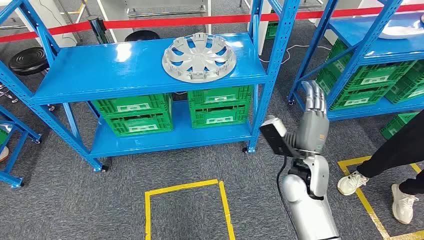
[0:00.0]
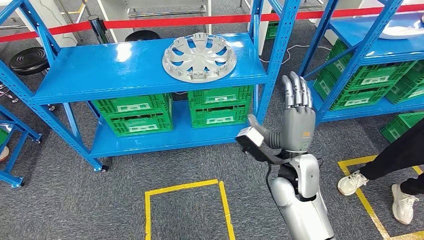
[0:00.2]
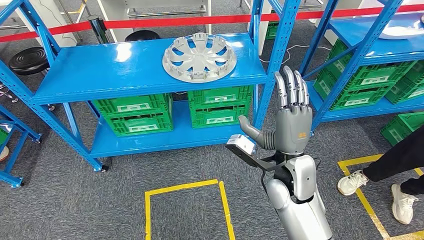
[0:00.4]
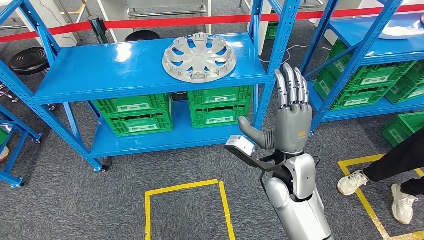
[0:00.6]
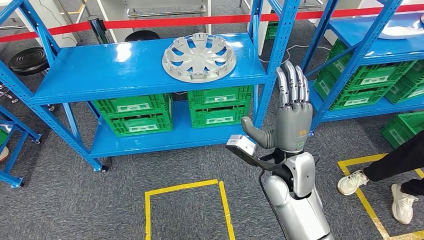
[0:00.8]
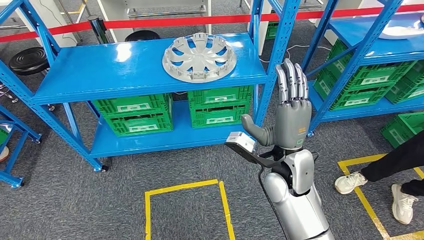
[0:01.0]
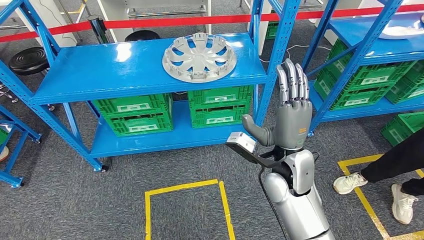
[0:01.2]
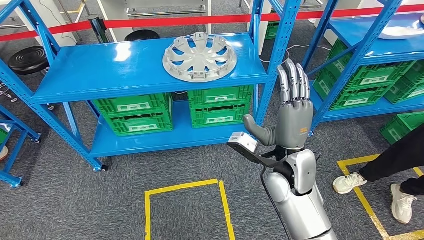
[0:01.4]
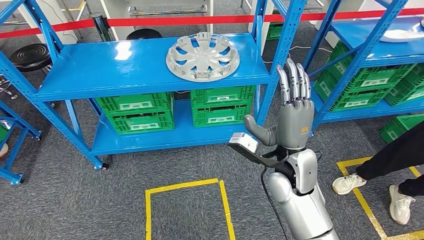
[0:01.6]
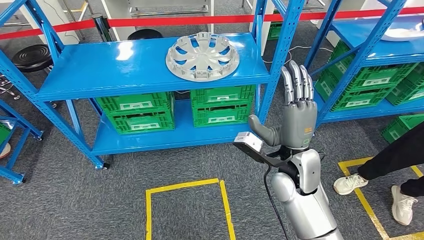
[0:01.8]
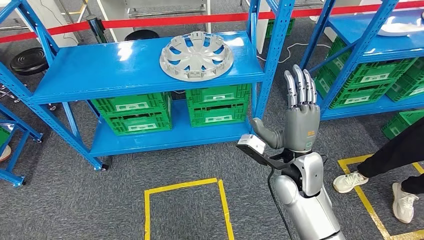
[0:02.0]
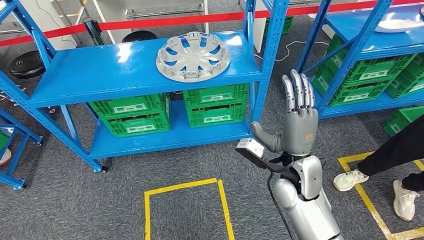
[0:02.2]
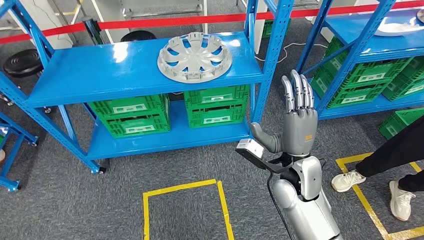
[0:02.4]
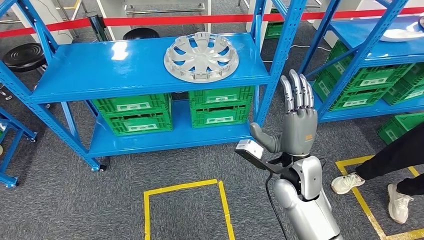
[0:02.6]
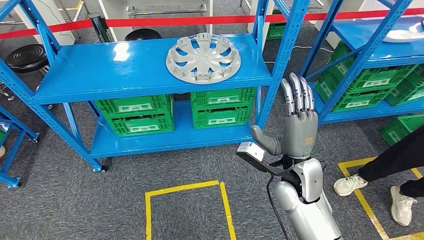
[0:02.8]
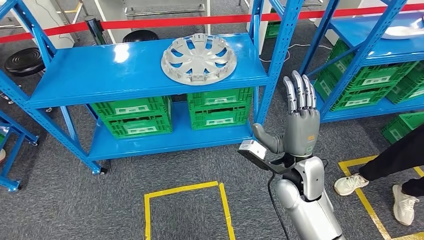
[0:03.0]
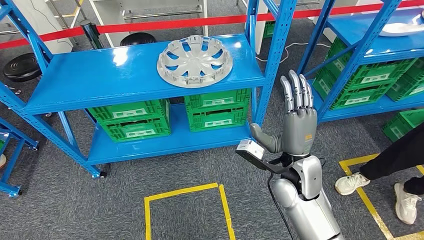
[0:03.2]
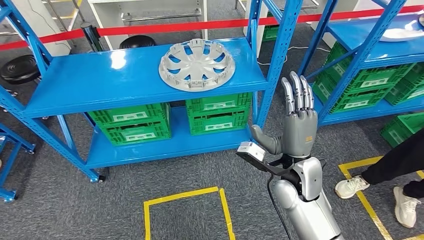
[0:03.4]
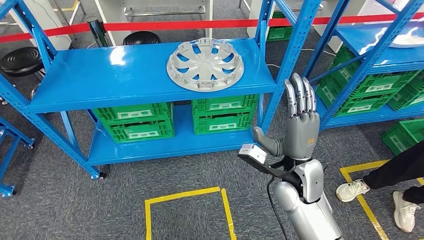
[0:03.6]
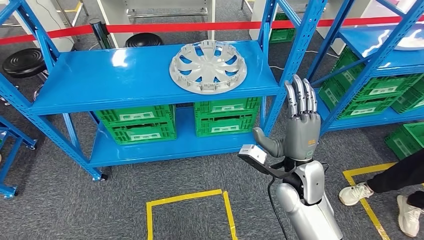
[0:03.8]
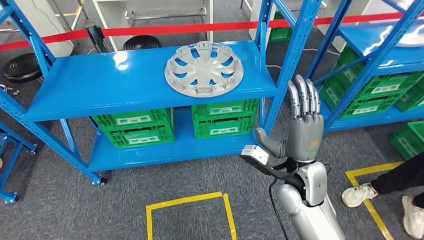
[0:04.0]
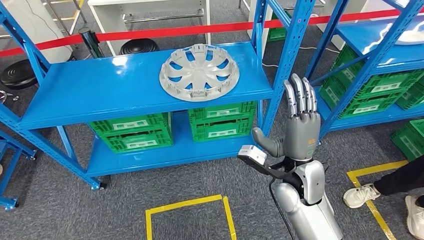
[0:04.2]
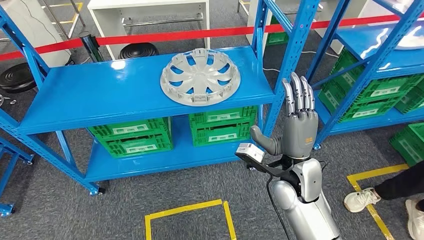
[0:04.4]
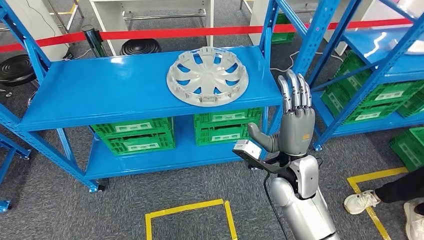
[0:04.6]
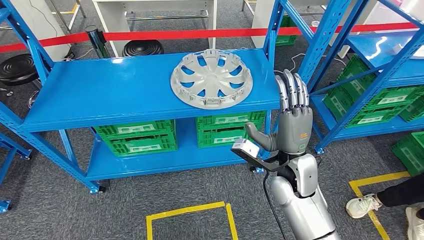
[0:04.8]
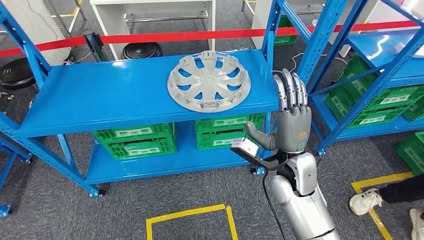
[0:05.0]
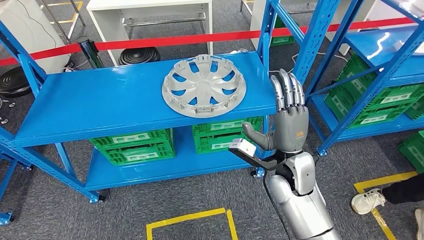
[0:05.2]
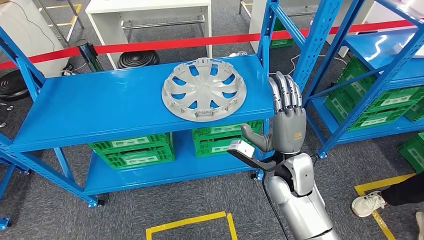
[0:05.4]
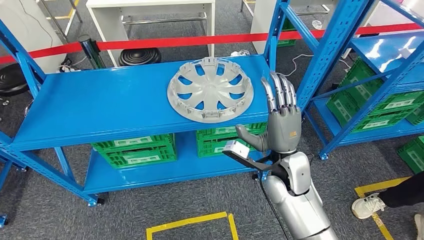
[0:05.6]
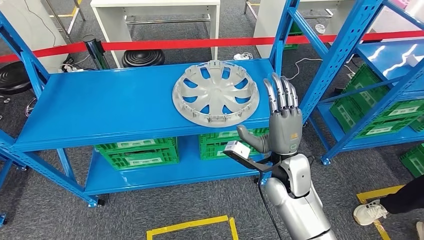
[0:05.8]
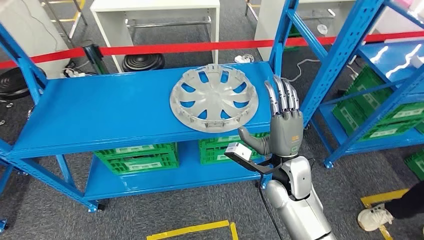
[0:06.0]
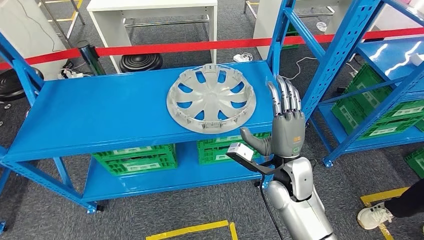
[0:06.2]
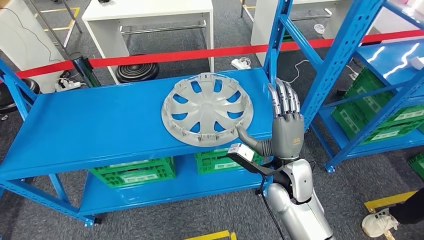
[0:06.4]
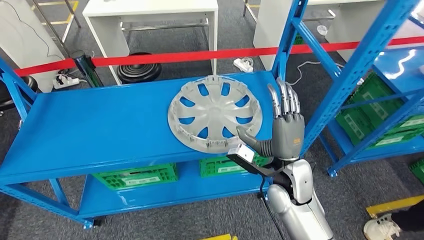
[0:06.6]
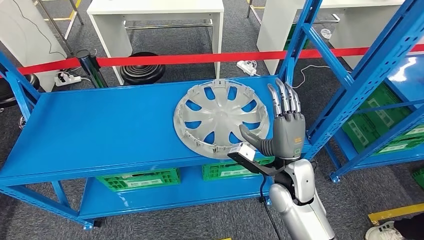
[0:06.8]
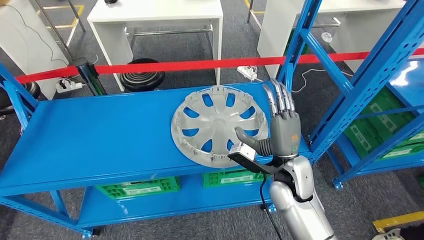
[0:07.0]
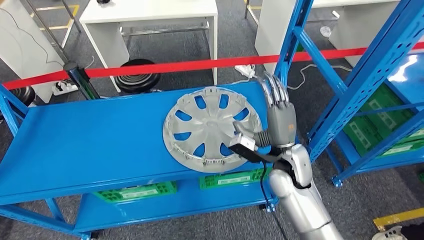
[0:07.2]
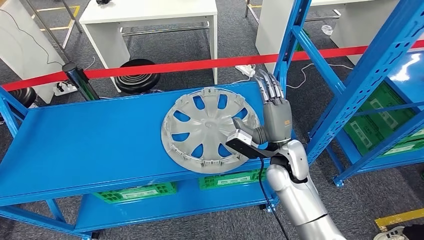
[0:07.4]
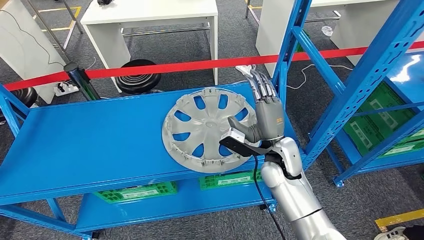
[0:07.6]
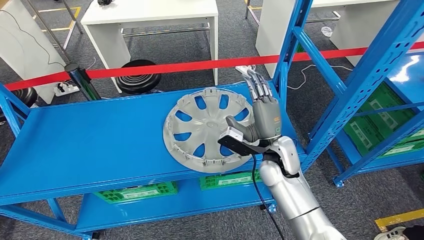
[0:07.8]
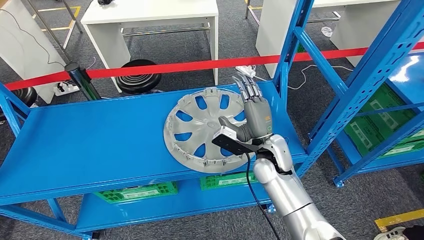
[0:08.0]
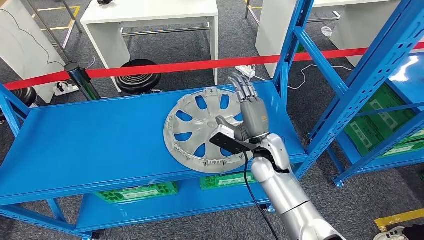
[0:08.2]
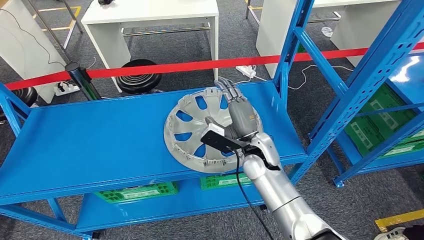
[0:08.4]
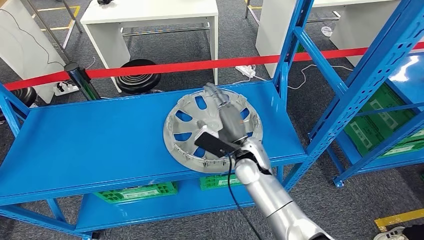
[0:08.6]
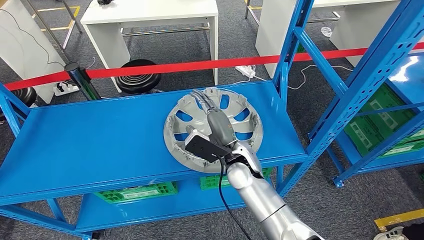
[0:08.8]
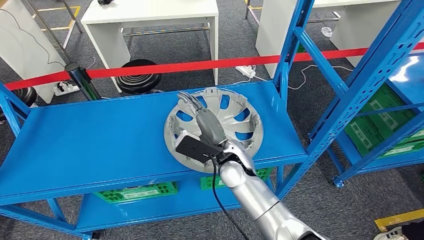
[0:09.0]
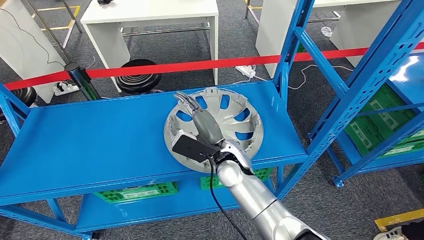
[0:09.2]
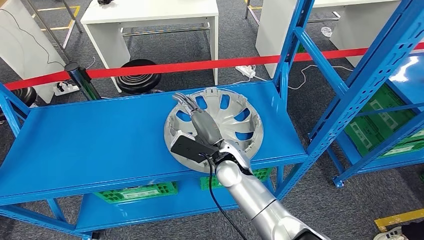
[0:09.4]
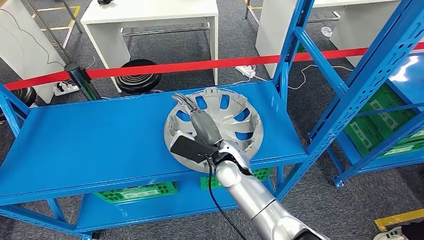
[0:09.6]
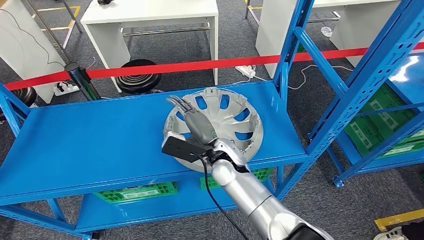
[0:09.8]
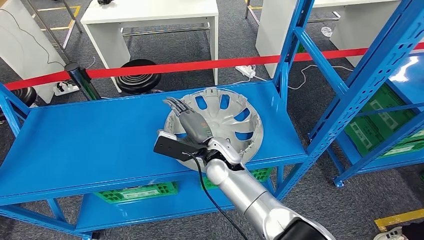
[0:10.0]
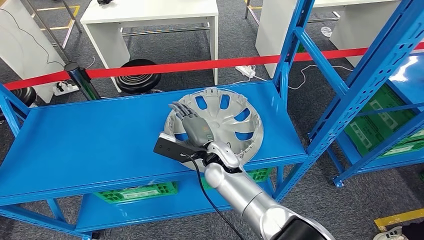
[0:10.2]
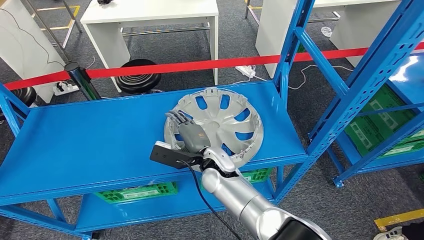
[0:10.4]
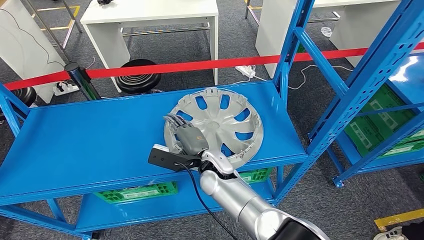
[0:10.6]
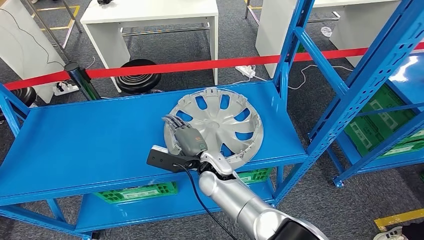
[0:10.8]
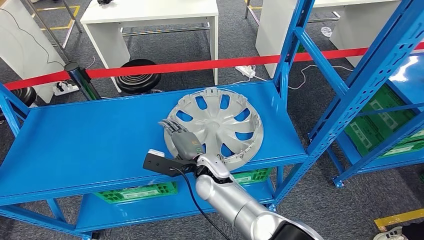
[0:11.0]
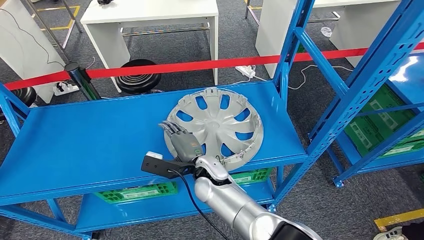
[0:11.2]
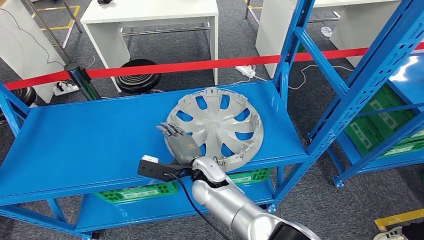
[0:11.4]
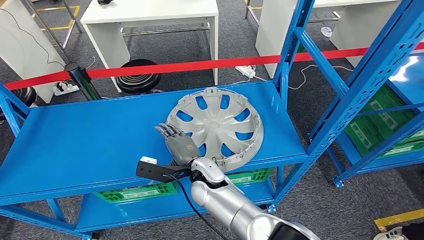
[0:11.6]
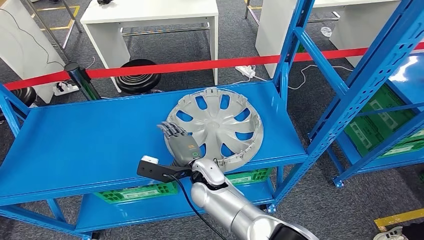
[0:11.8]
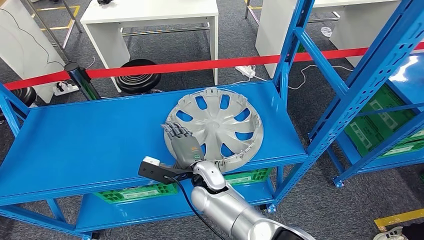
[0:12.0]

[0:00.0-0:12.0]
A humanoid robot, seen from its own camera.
0:07.6 to 0:09.0: The right hand heads to the left, covering roughly 10 cm.
0:10.4 to 0:12.0: The hands stay close to where they were, moving slightly.

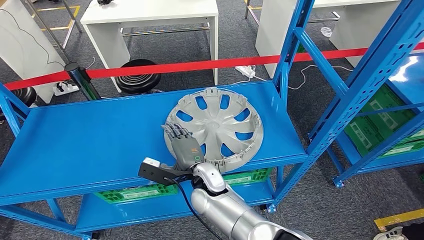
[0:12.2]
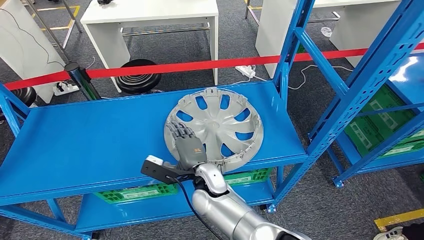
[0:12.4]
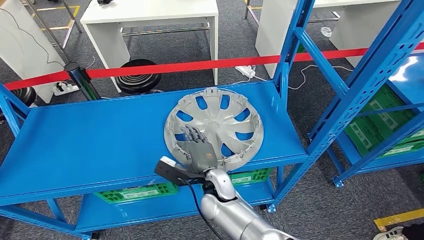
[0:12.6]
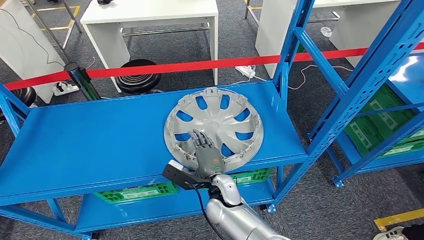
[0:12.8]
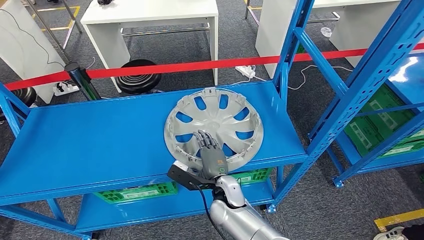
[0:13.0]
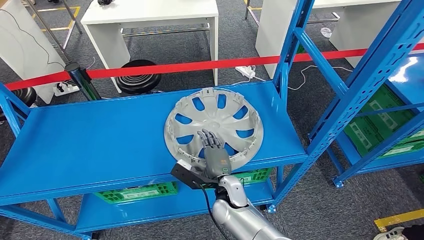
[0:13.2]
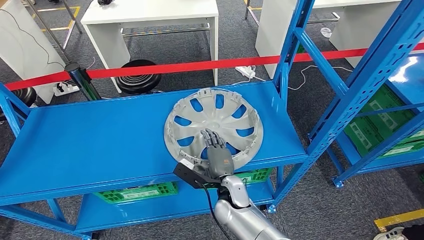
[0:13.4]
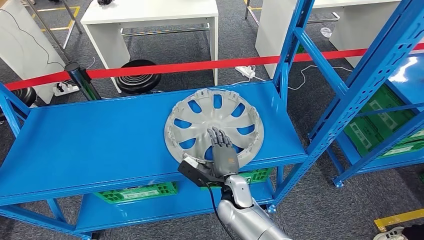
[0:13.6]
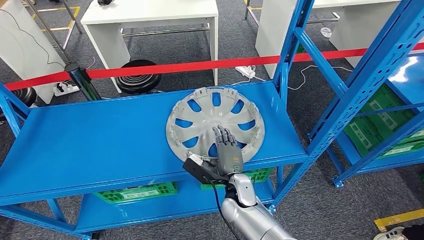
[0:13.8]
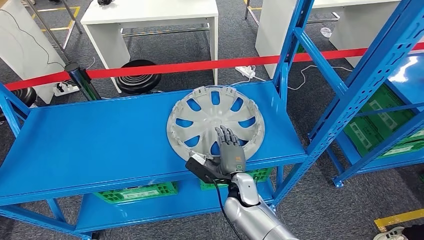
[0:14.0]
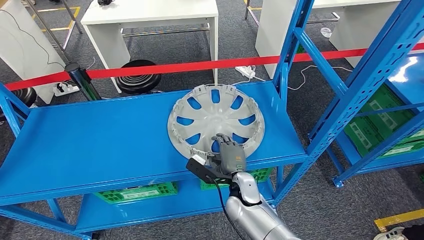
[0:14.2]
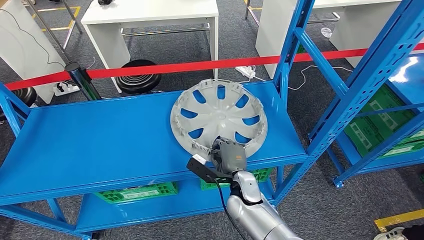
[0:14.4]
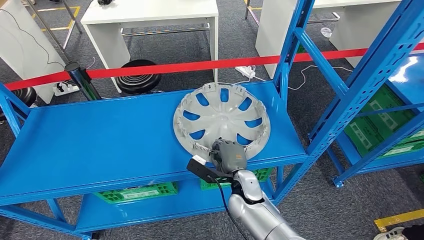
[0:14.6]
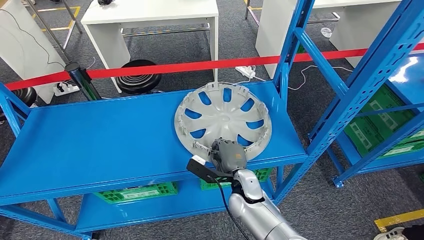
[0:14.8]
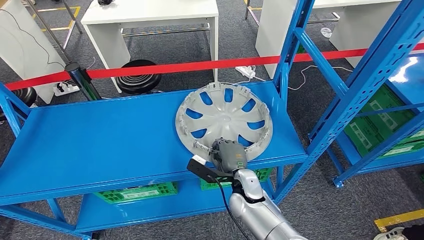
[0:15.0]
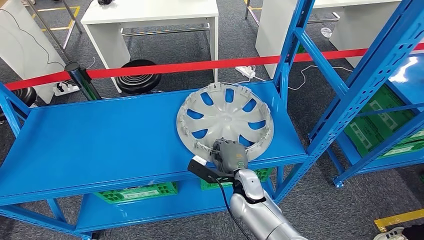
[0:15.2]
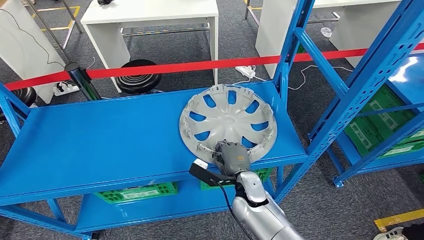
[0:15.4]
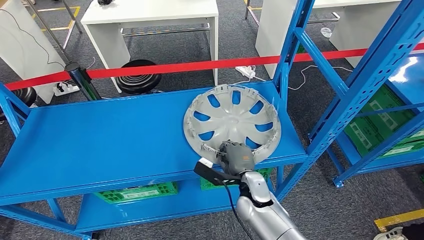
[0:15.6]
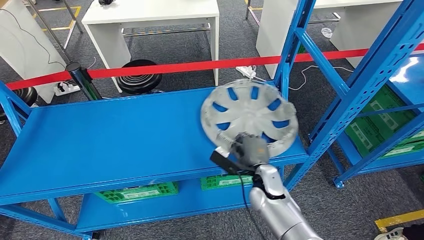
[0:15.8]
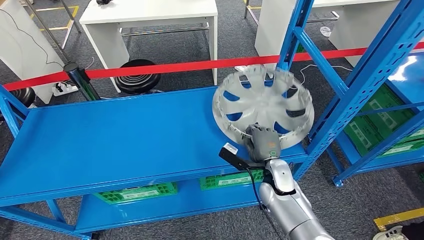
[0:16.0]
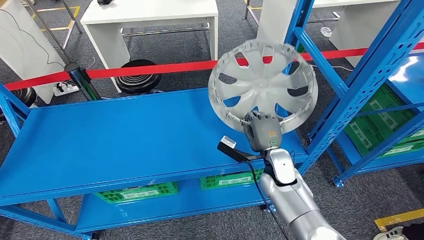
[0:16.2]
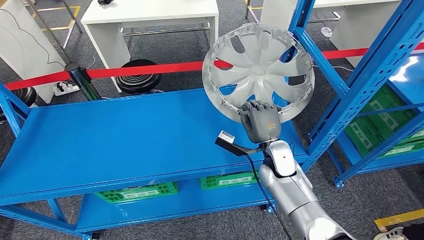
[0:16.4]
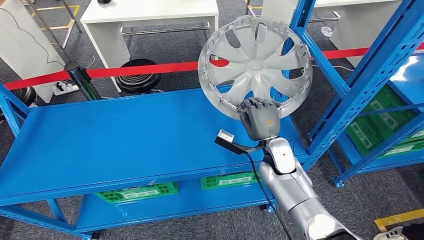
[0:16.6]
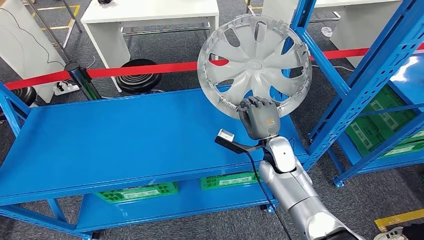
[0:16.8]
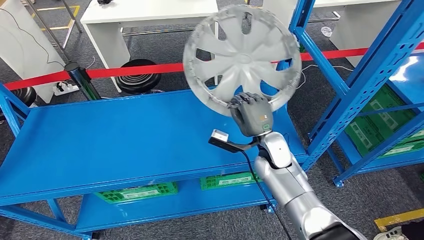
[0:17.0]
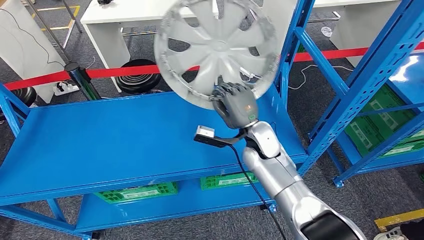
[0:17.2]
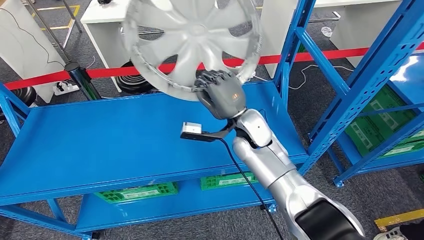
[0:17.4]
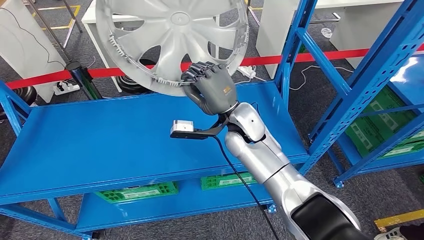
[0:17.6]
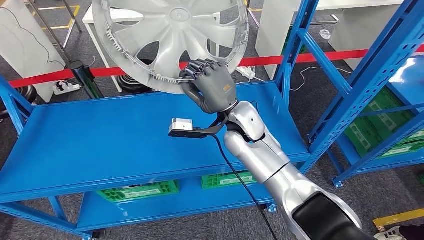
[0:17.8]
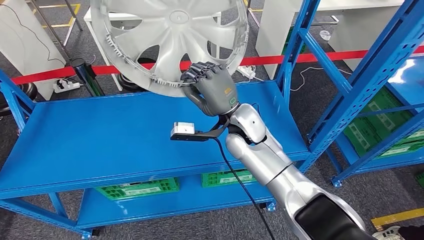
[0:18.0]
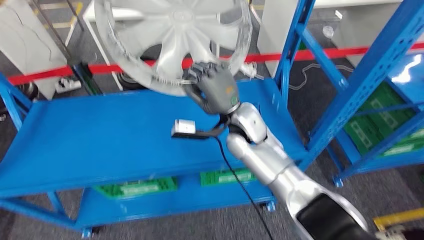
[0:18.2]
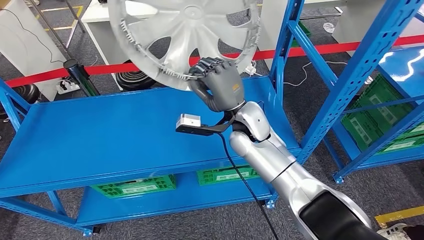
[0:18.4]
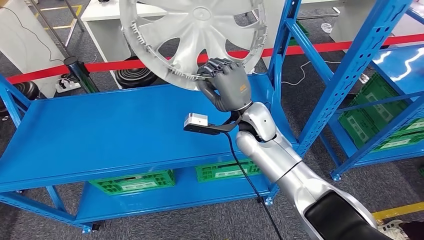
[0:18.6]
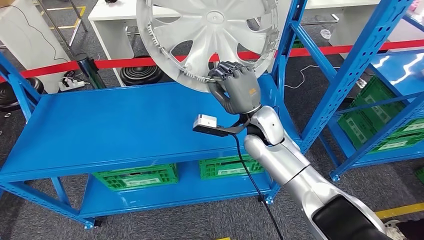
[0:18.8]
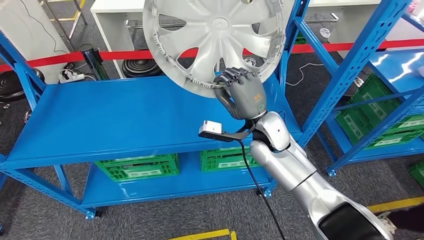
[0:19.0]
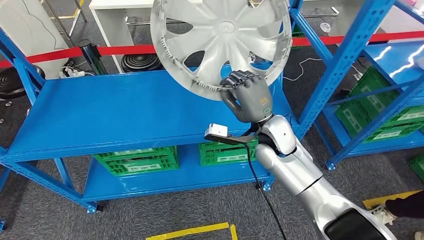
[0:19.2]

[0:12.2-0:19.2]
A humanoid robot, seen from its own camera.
Step, 0:12.2 to 0:17.0: Pick up the small component from the shelf.
0:12.2 to 0:13.6: The right hand goes some 5 cm to the right.
0:13.6 to 0:15.0: The hands stay close to where they were, moving slightly.
0:15.0 to 0:16.4: The right hand heads to the right, forward and upward, covering roughly 15 cm.
